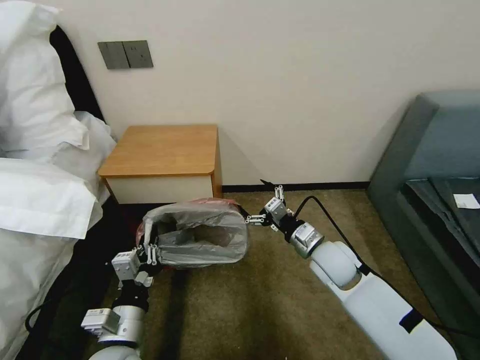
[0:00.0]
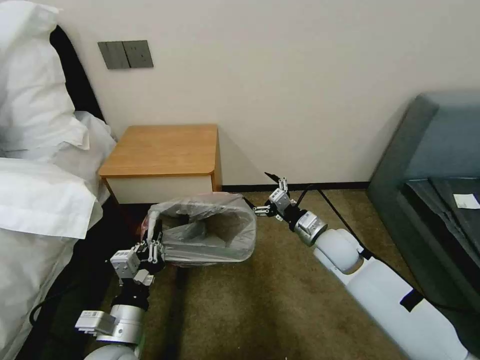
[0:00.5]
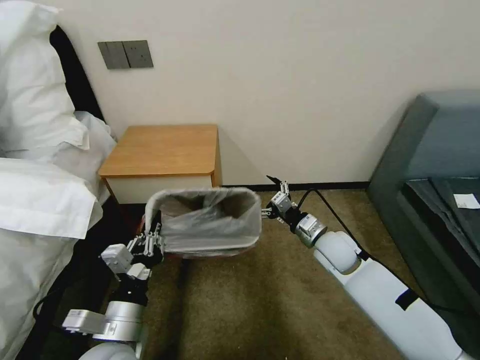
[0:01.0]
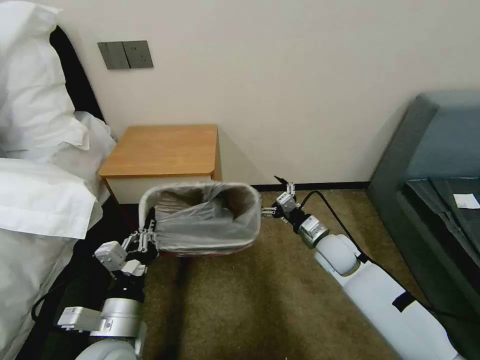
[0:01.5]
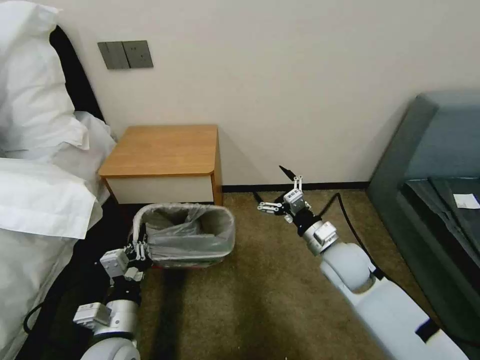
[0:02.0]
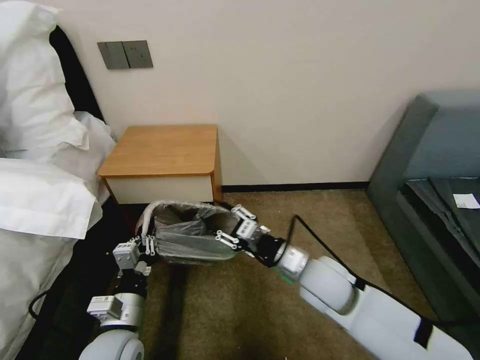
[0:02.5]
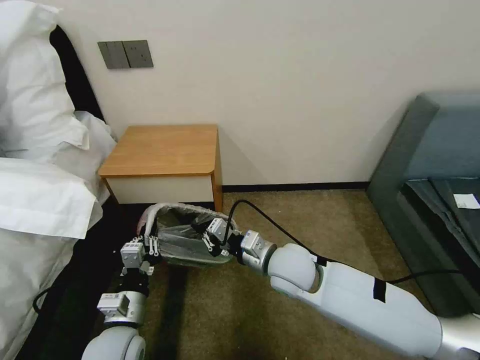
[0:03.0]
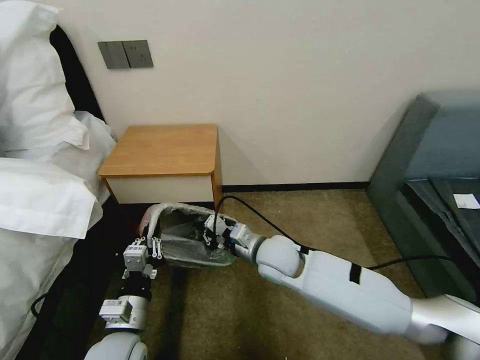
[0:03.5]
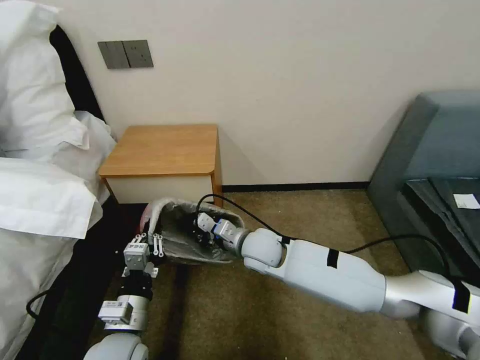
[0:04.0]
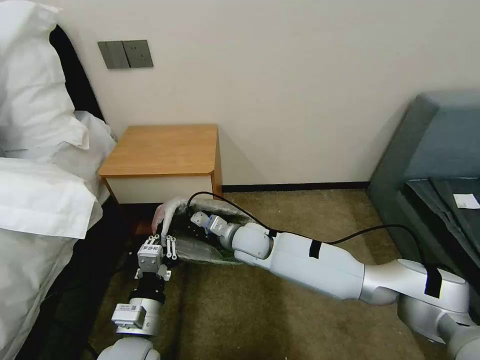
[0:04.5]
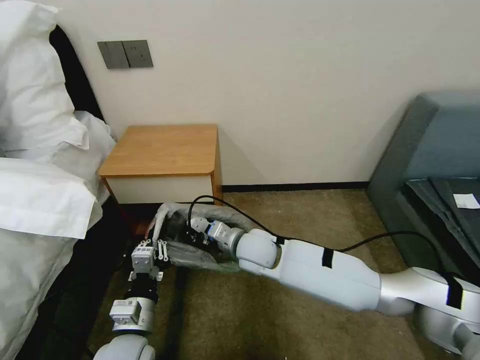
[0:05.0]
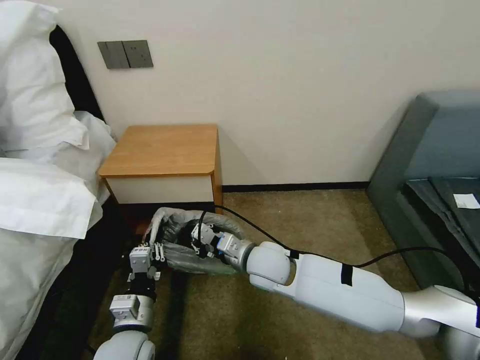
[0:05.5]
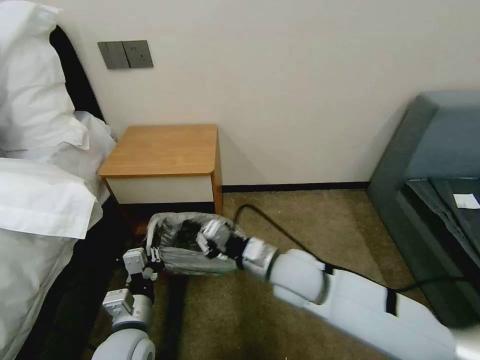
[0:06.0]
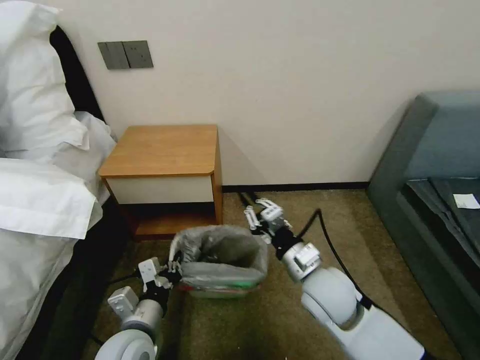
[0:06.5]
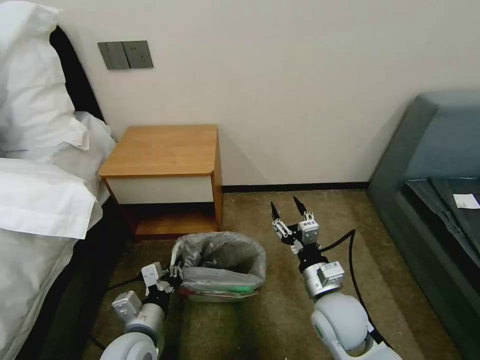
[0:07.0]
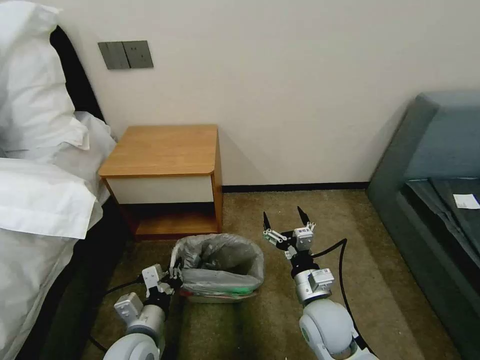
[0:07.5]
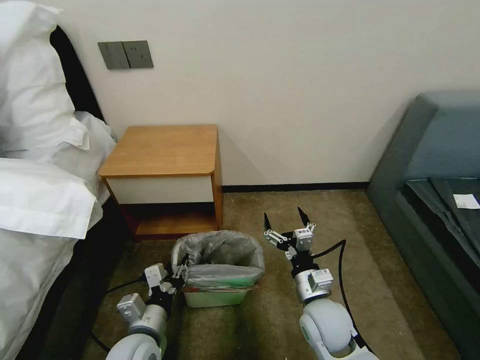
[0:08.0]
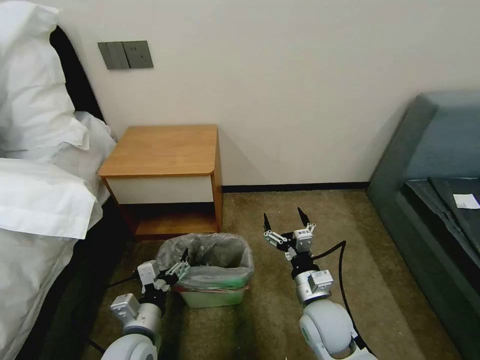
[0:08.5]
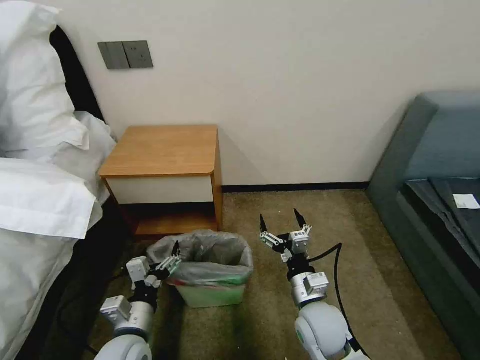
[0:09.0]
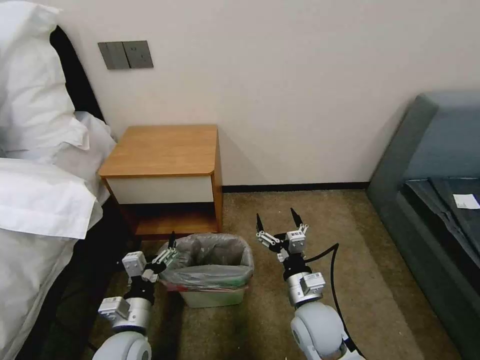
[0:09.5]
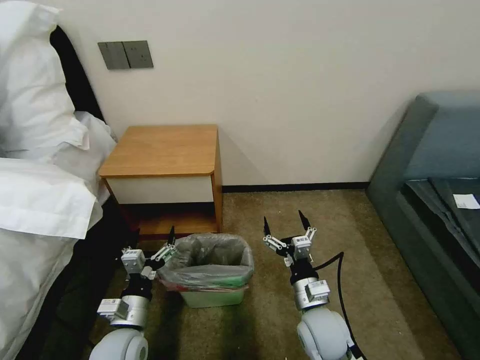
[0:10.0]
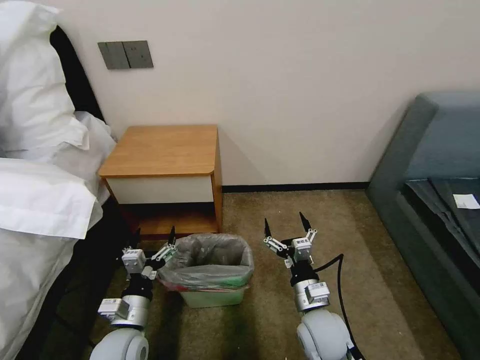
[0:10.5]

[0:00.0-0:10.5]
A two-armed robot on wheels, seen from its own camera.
Task of the whole recording: Pick up the garbage bag from the table and place it over the trash can.
0:02.0 to 0:04.0: The right gripper is displaced to the left by approximately 20 cm, and closes its fingers.
0:04.0 to 0:06.5: The right gripper moves to the right and backward, approximately 15 cm.
0:06.5 to 0:08.5: The right gripper moves downward, about 10 cm, and opens up, while the left gripper opens.

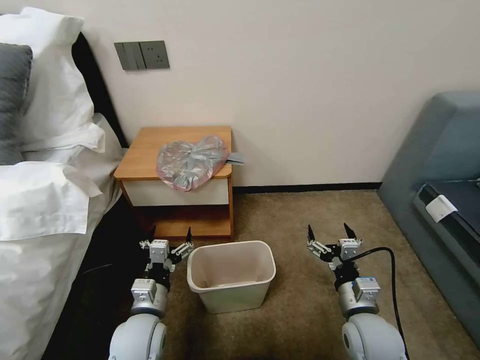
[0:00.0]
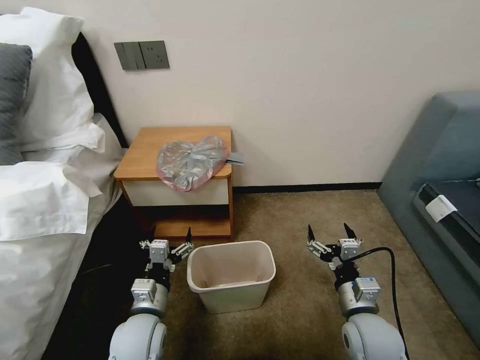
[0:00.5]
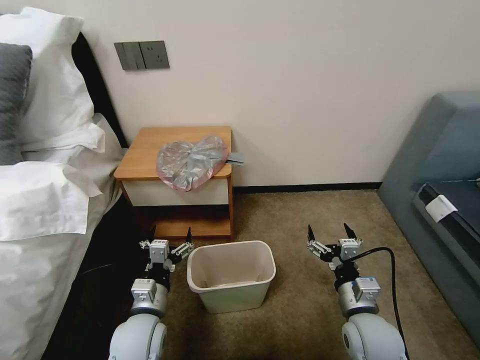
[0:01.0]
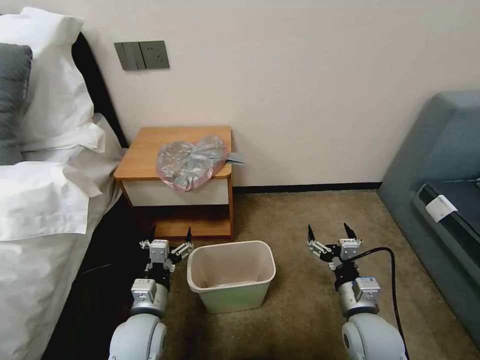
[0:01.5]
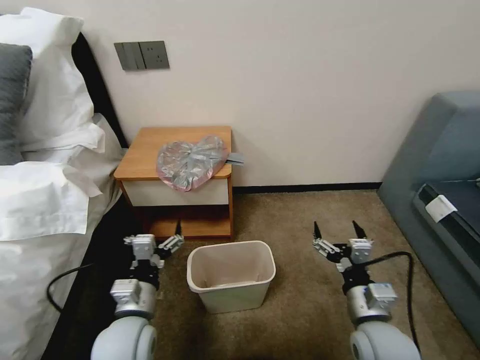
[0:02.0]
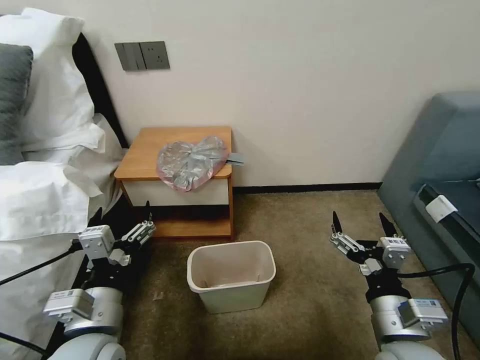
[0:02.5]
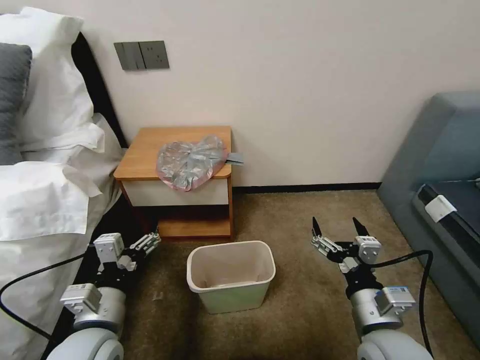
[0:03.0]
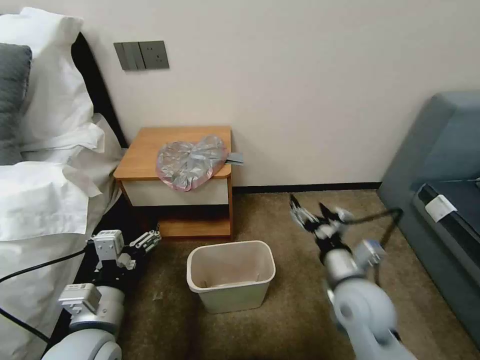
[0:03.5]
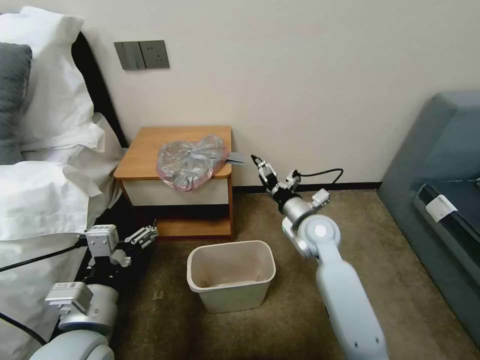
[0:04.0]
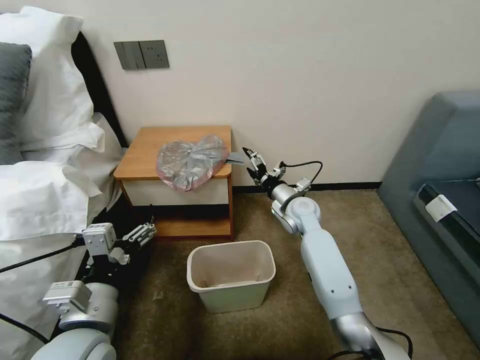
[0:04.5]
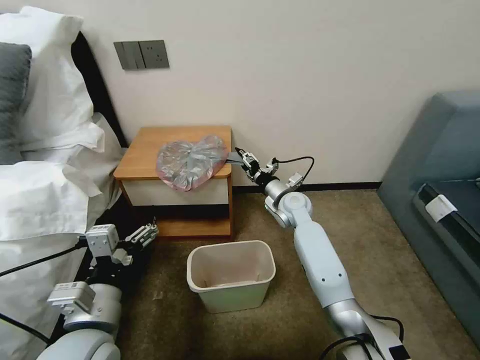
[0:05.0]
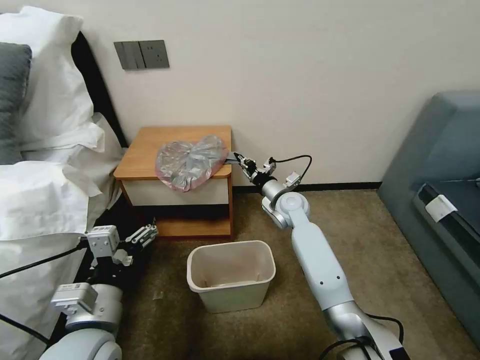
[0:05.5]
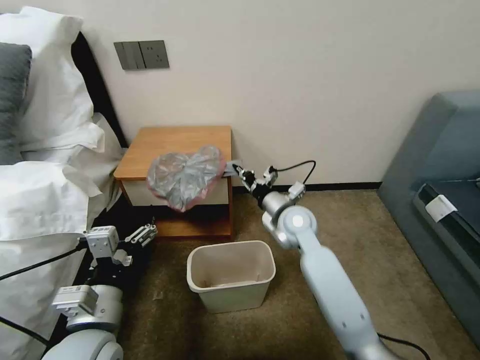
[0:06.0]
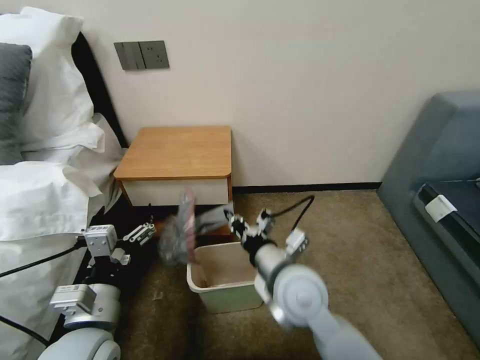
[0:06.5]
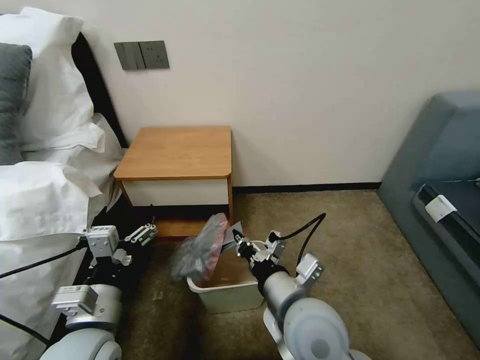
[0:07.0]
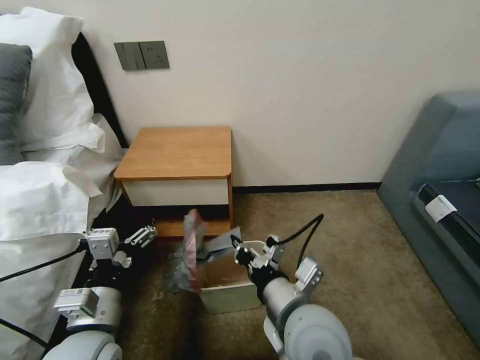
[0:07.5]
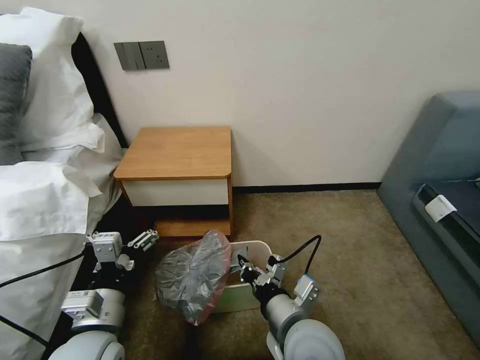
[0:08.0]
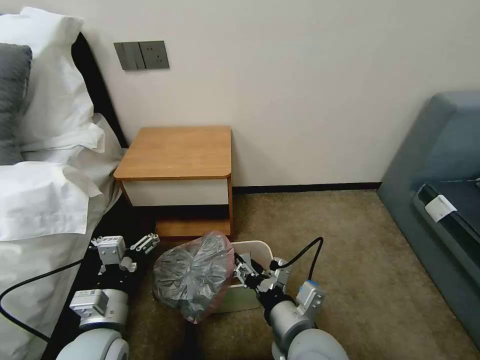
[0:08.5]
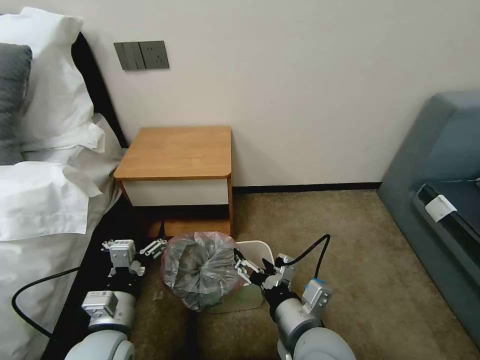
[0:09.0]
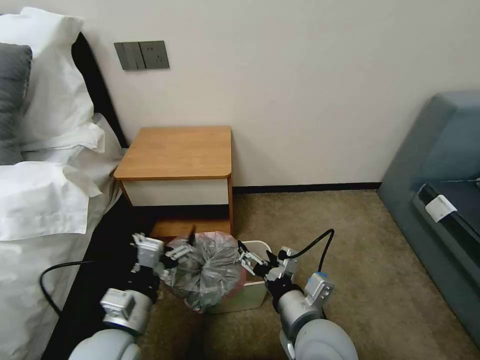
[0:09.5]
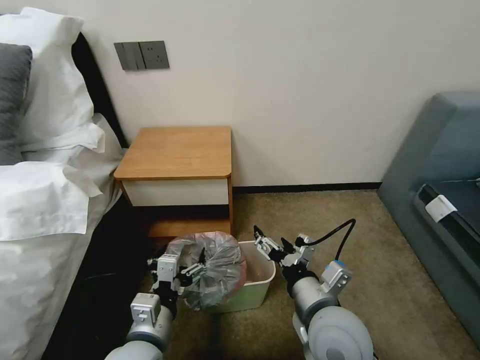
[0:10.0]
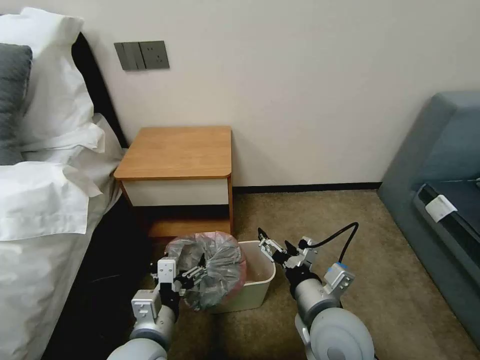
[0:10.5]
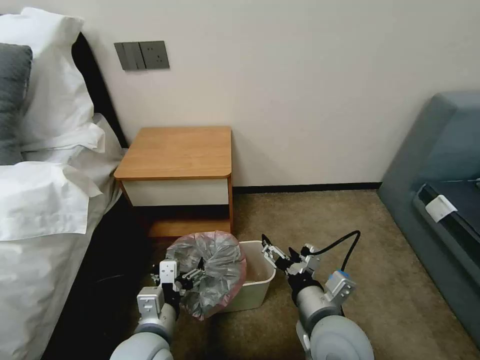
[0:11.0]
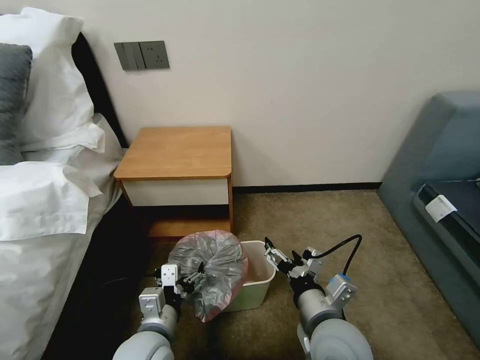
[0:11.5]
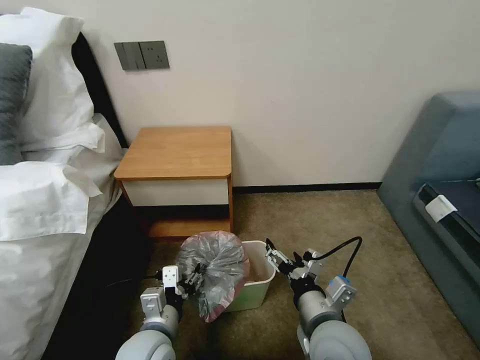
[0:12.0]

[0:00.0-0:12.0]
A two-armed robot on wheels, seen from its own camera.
Task of the whole recording: Pick up the garbage bag from the table and place it over the trash can.
0:02.0 to 0:04.0: The left gripper moves up and down over about 10 cm, changing direction 2 times. Meanwhile the right gripper moves forward, some 20 cm.
0:04.0 to 0:06.0: The right gripper travels forward and back again, roughly 10 cm each way, and closes.
0:06.0 to 0:08.0: The right gripper shifts about 25 cm backward.
0:08.0 to 0:10.0: The left gripper travels to the right by approximately 5 cm, while the right gripper opens.
0:10.0 to 0:12.0: The left gripper moves approximately 5 cm, and closes.

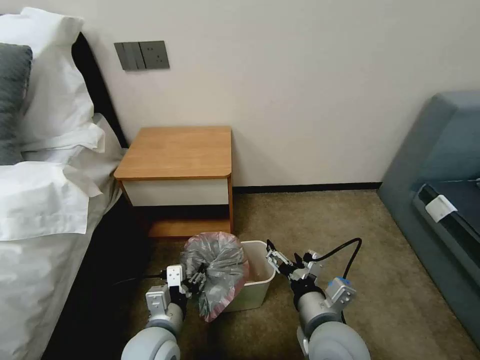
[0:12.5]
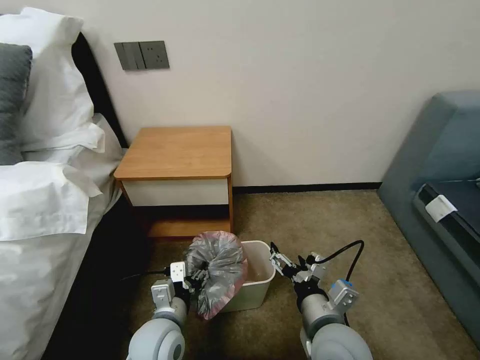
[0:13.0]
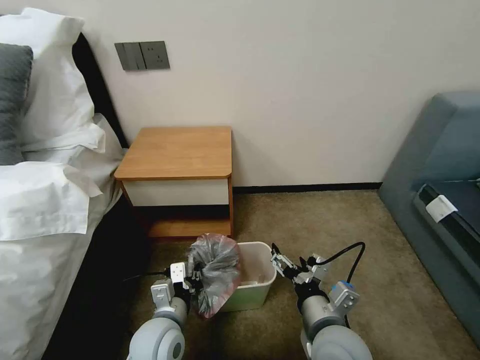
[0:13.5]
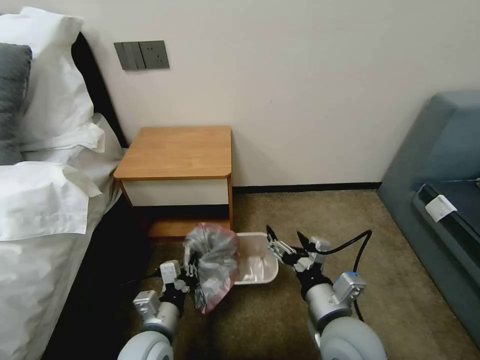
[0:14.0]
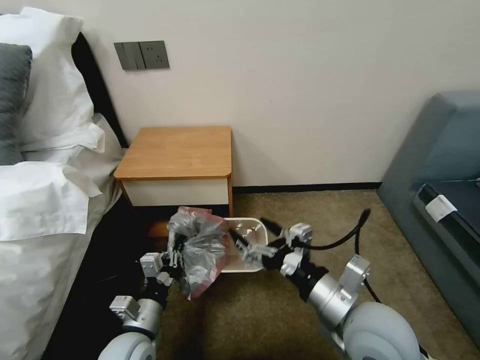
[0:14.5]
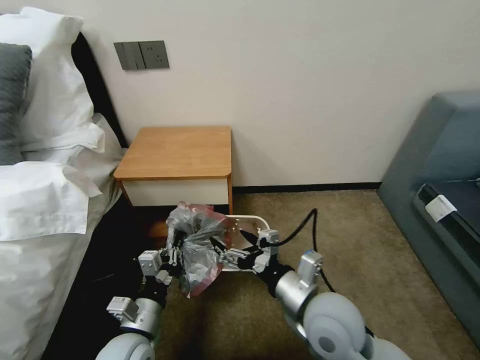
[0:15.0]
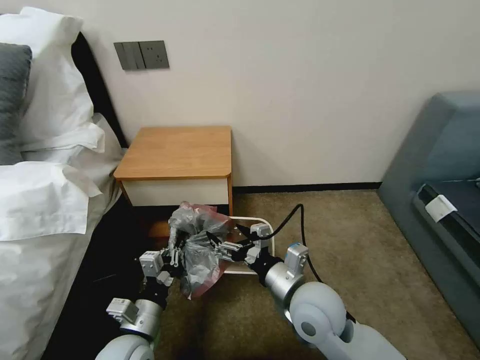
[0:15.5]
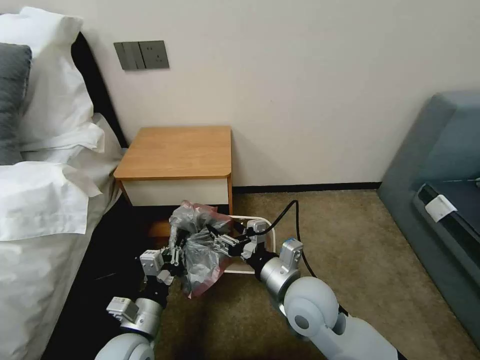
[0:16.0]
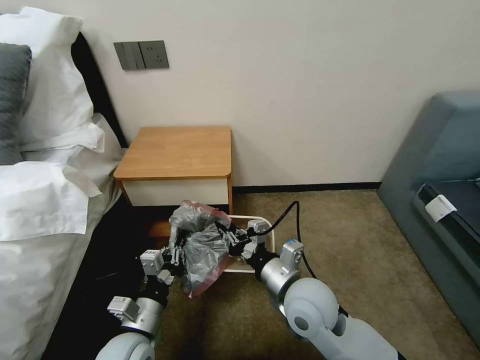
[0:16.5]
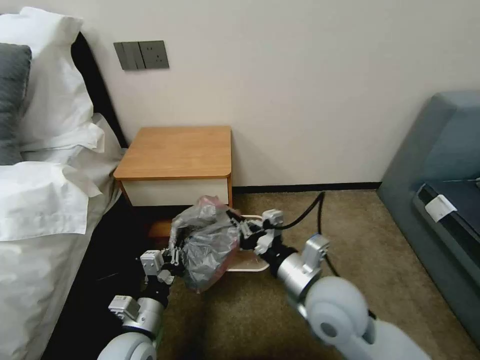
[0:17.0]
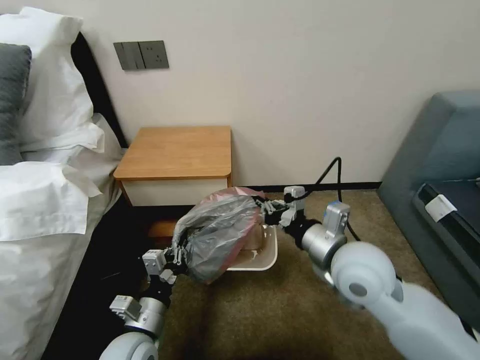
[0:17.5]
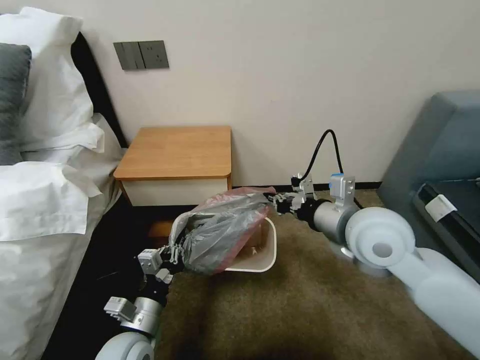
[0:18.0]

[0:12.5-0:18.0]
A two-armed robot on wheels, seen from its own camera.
Task of the whole recording: Pick up the garbage bag from the table and place it over the trash can.
0:12.5 to 0:14.5: The right gripper travels upward by some 5 cm; the left gripper is displaced to the left by approximately 5 cm, and closes.
0:14.5 to 0:16.0: The right gripper shifts about 10 cm to the left, forward and downward.
0:16.0 to 0:18.0: The right gripper heads upward, to the right and forward, covering some 20 cm, and closes its fingers.
